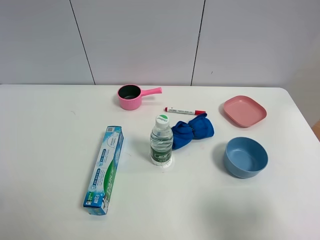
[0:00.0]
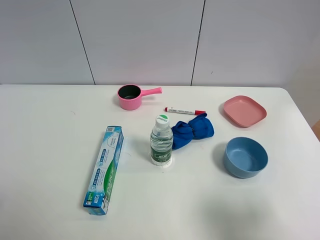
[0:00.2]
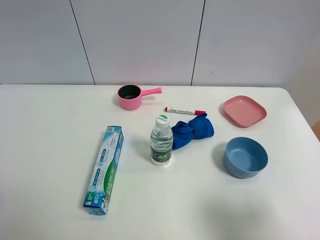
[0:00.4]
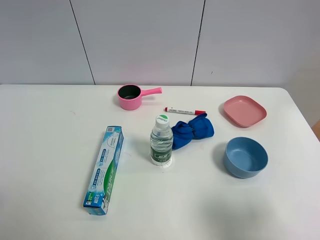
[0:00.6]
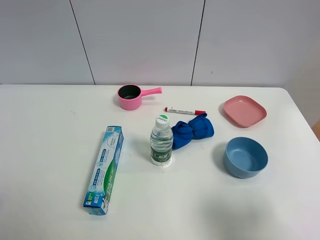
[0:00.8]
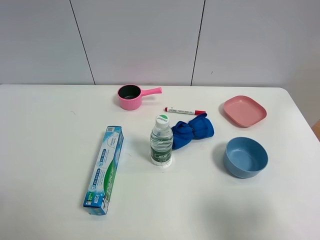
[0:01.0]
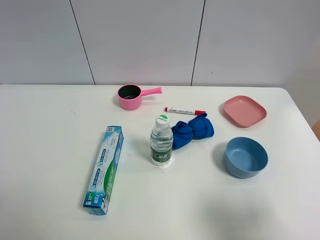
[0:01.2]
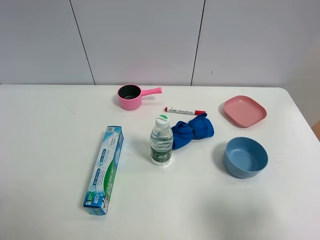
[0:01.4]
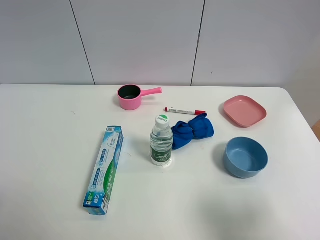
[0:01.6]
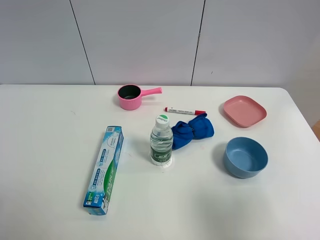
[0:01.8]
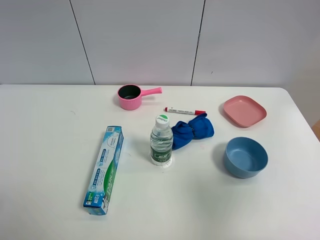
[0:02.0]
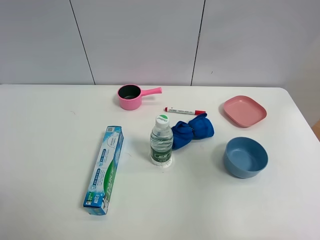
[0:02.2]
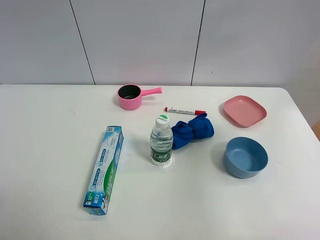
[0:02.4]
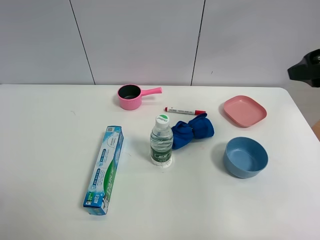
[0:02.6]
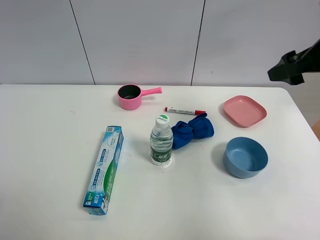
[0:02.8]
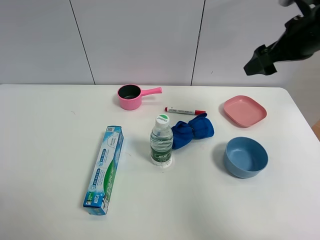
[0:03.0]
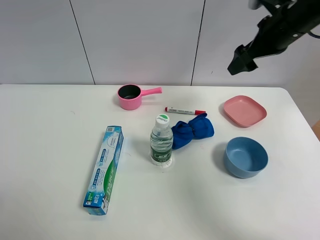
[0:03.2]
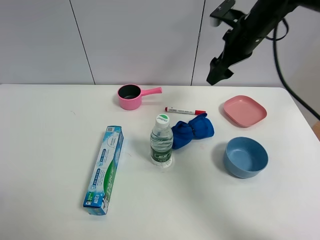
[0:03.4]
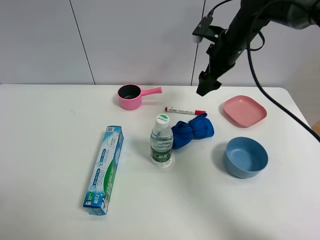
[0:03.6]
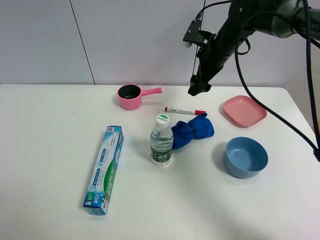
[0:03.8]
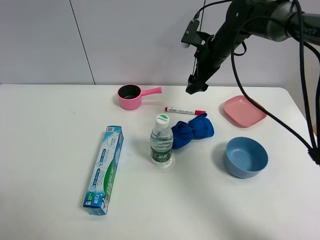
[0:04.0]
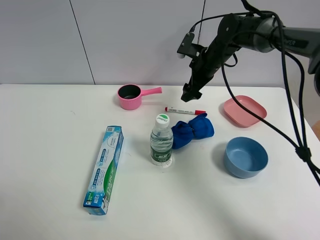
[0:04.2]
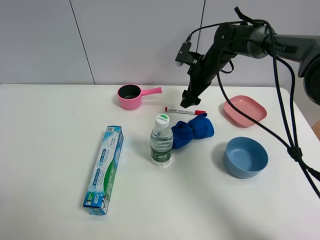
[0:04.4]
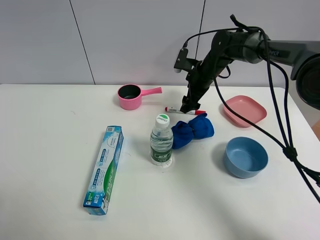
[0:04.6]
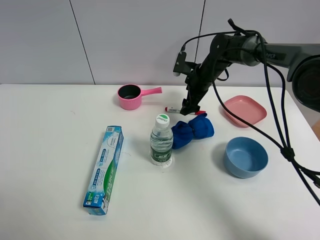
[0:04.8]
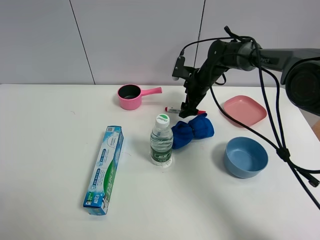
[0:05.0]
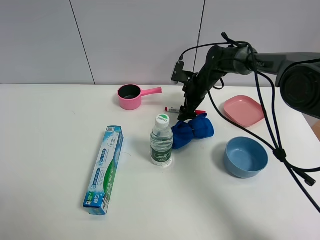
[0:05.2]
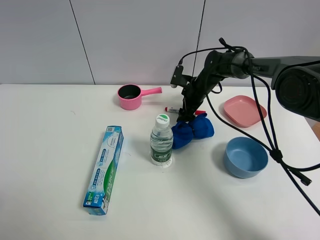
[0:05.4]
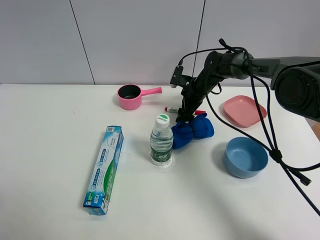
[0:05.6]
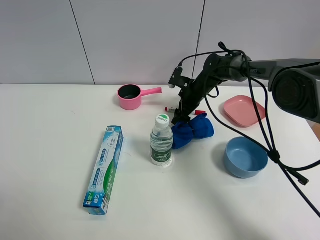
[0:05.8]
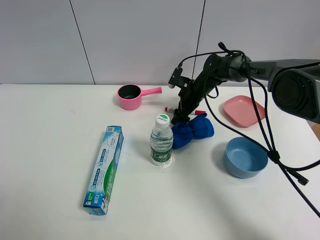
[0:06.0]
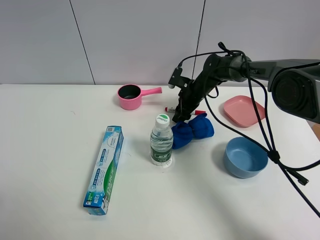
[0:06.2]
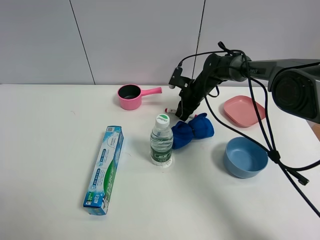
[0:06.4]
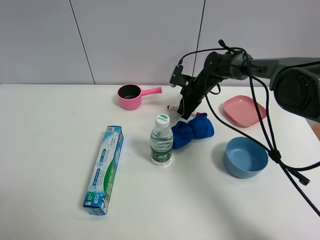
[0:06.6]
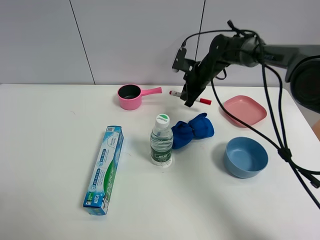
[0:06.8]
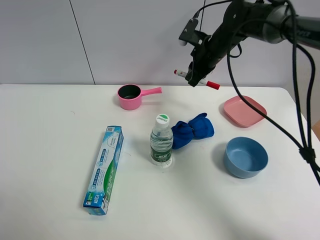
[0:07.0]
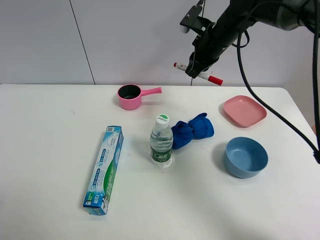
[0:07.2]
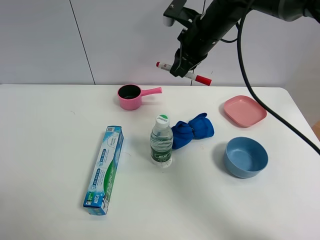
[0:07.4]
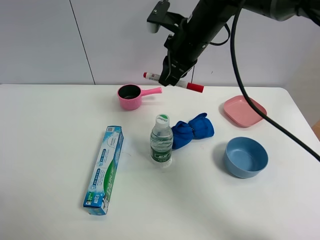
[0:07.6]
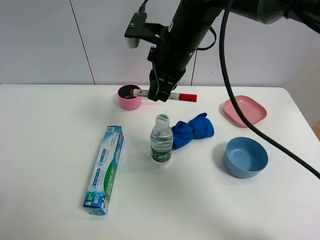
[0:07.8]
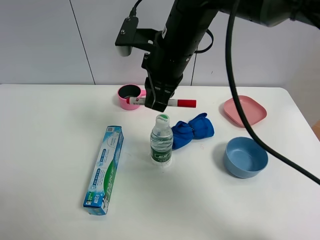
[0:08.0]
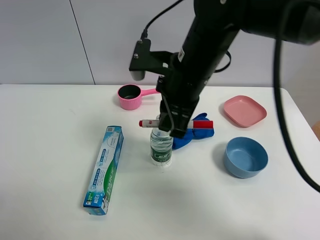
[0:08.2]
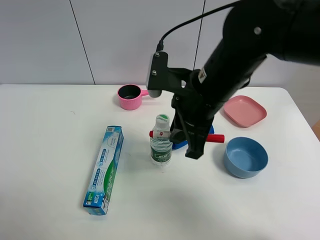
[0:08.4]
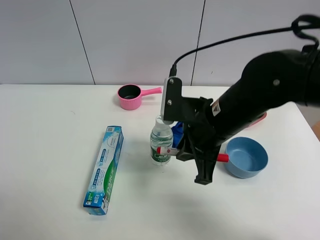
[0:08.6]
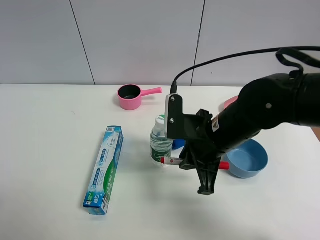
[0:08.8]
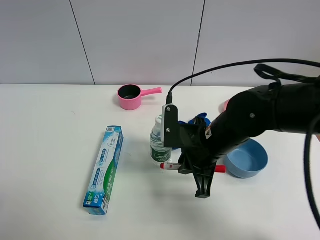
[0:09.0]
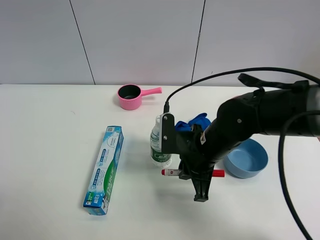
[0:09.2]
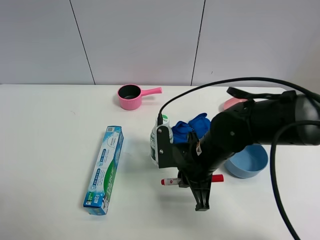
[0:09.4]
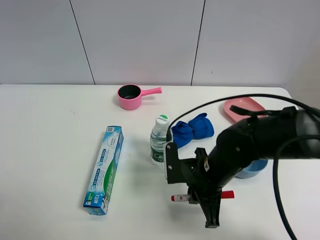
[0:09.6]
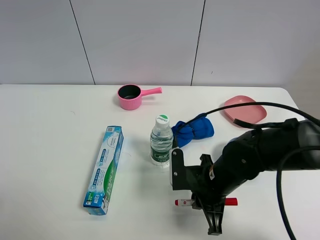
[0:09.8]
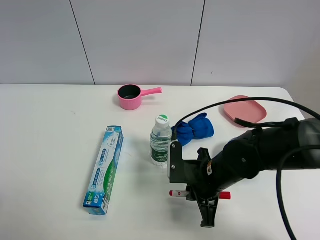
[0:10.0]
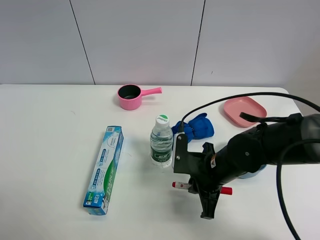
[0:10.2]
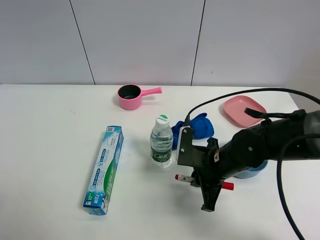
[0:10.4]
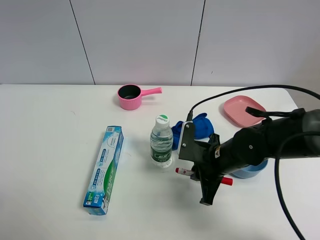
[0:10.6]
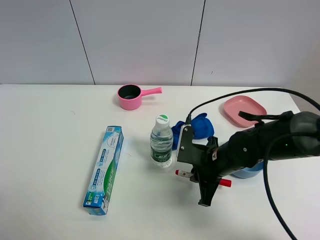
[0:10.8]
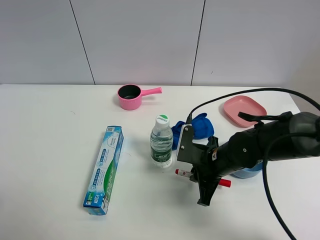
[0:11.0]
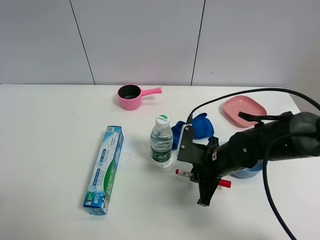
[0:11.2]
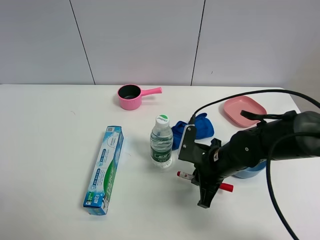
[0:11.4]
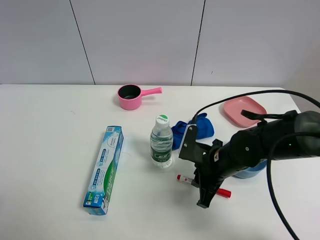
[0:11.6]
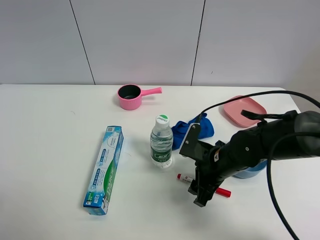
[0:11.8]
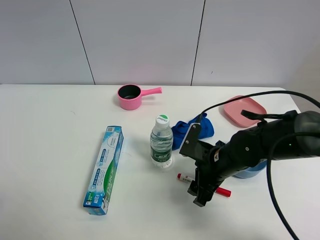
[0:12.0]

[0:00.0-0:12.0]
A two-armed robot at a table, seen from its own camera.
Task of the whole recording: the gripper move the object.
Step, 0:00.0 to 0:06.4: Grasp the red marker pen with the right gripper.
Step, 0:06.6 to 0:11.6: Place the red marker pen on the table with the right gripper.
0:01.6 to 0:03.0: The right gripper is displaced forward by about 35 cm.
0:03.0 to 0:04.4: The right gripper heads downward, forward and to the left, covering some 25 cm.
0:04.4 to 0:06.0: The right gripper heads downward, covering roughly 10 cm.
0:06.0 to 0:07.6: The right gripper goes roughly 25 cm upward and backward, and closes.
0:07.6 to 0:09.0: The right gripper travels backward and downward by approximately 20 cm.
0:09.0 to 0:10.4: The right gripper moves downward, approximately 5 cm.
0:10.4 to 0:12.0: The right gripper opens.

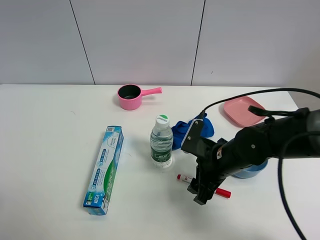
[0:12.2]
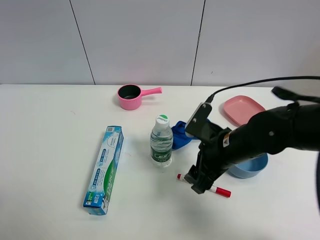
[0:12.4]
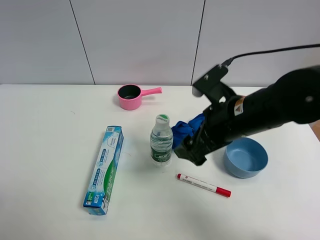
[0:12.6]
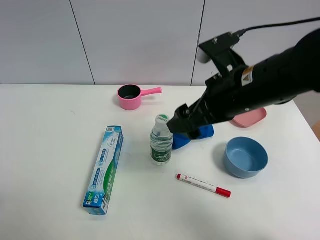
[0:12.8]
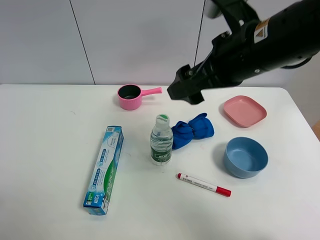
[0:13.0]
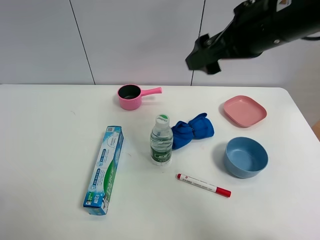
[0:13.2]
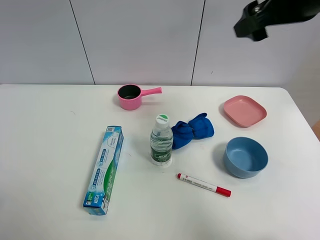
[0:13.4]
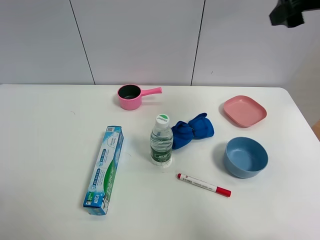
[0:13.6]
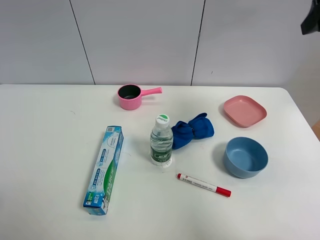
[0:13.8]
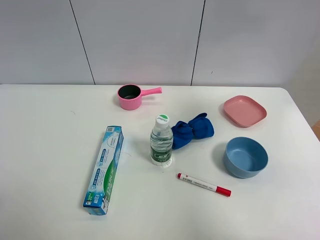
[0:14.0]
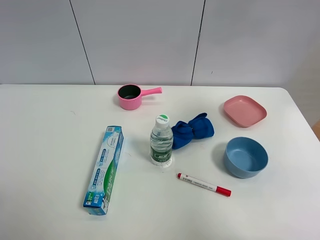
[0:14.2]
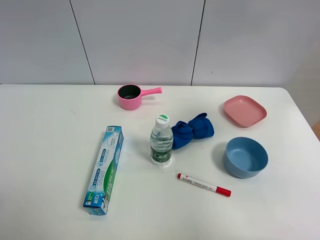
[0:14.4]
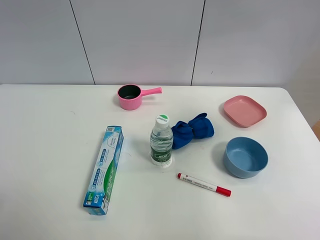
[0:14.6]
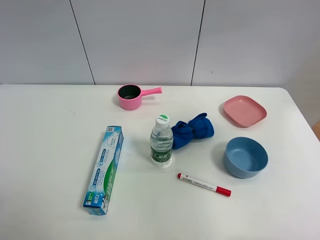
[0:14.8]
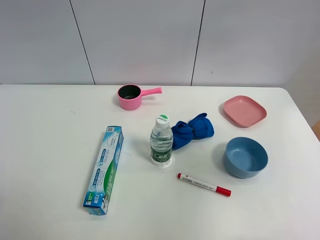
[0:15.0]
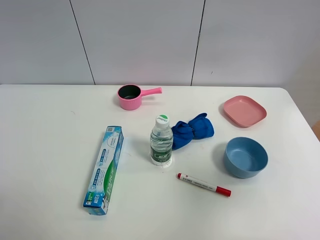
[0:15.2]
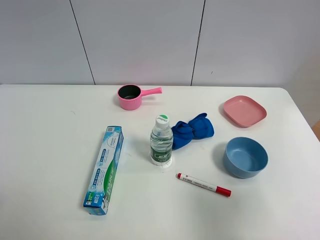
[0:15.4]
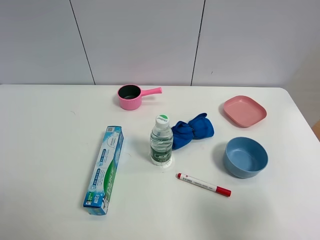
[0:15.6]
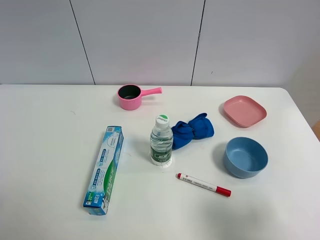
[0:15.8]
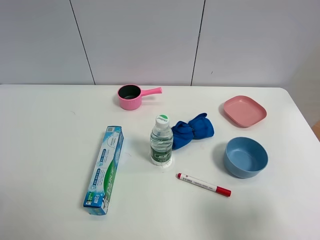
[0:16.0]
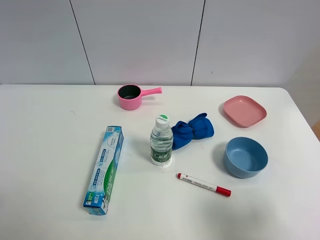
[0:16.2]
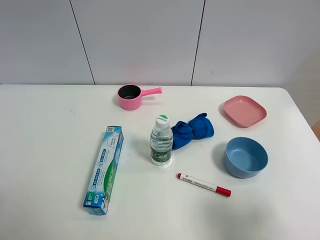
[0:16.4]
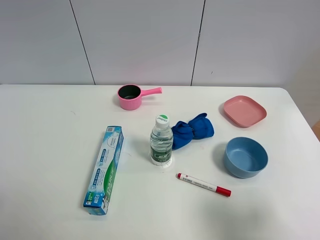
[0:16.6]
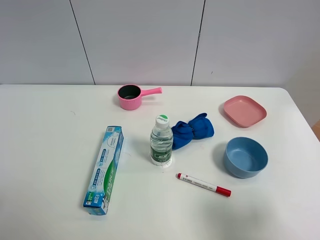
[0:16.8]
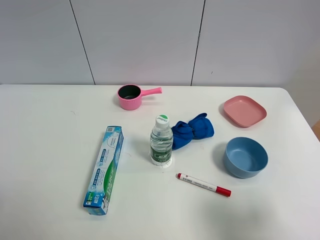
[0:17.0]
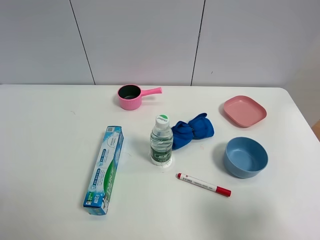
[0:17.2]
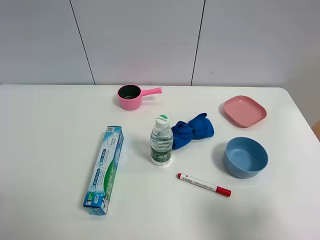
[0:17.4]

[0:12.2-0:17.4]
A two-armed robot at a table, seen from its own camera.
Task of the whole recording: the gripper move the object.
0:12.2 to 0:14.0: The right gripper moves upward and to the right, approximately 35 cm.
0:14.0 to 0:15.6: The right gripper heads backward and downward, covering roughly 30 cm.

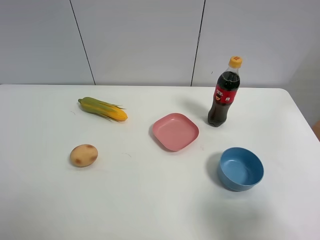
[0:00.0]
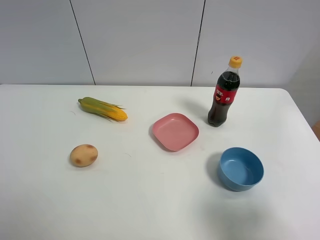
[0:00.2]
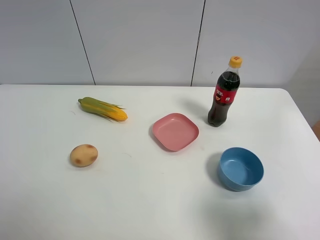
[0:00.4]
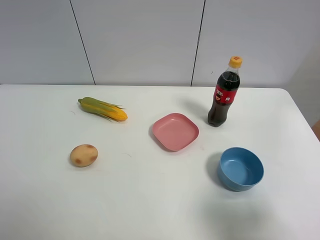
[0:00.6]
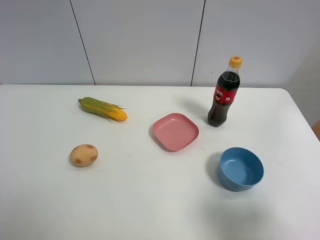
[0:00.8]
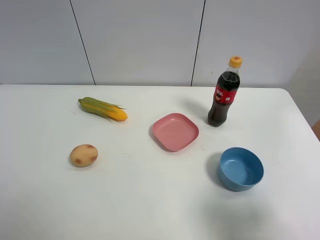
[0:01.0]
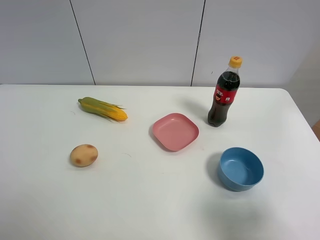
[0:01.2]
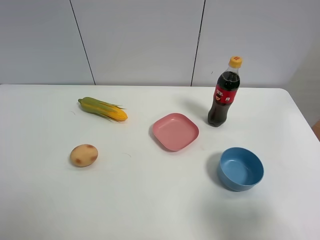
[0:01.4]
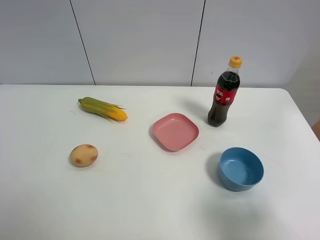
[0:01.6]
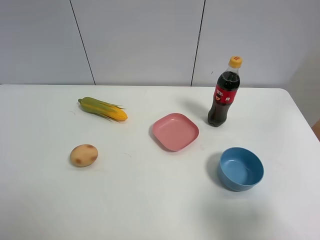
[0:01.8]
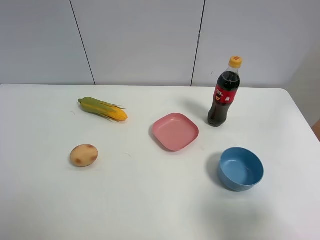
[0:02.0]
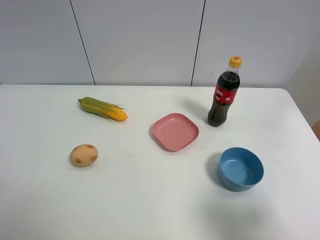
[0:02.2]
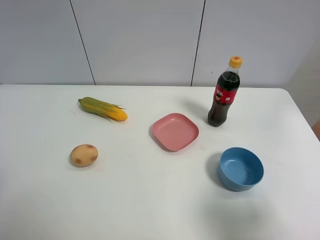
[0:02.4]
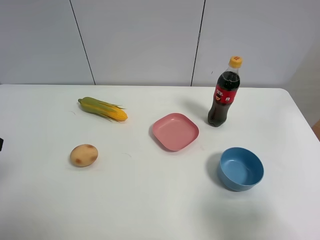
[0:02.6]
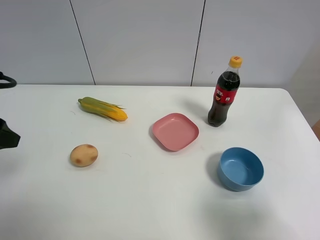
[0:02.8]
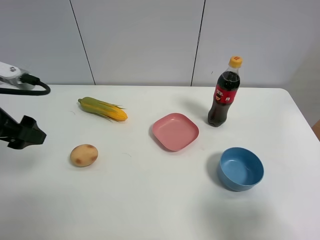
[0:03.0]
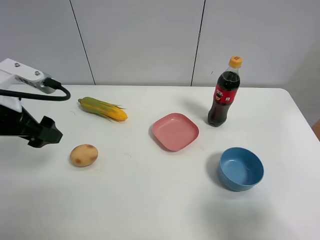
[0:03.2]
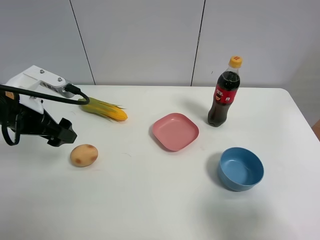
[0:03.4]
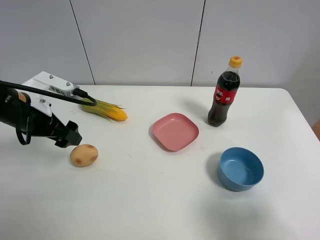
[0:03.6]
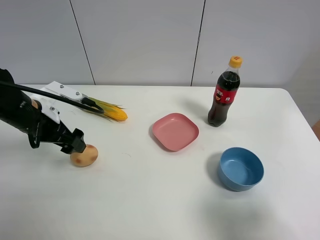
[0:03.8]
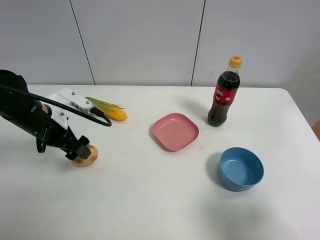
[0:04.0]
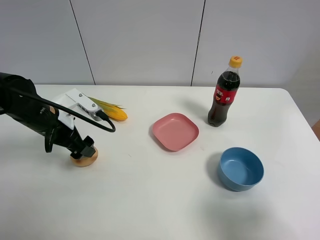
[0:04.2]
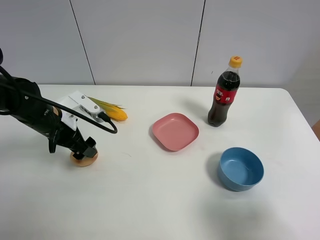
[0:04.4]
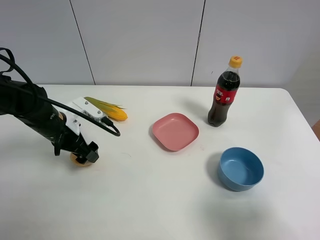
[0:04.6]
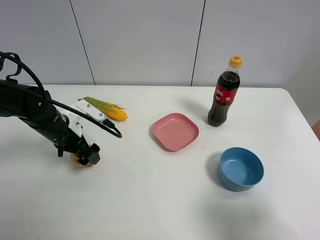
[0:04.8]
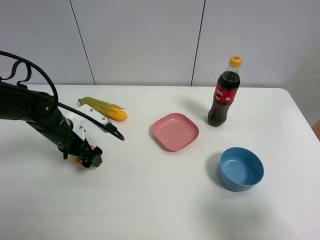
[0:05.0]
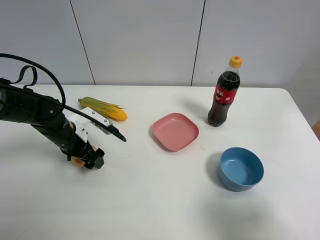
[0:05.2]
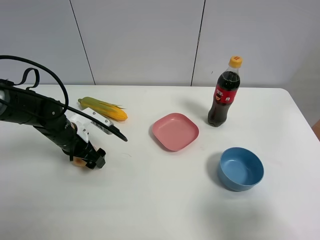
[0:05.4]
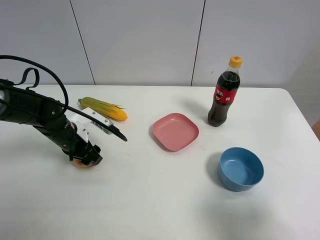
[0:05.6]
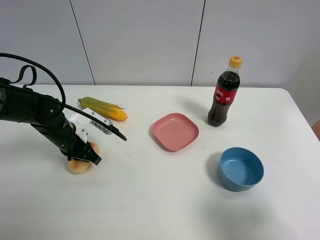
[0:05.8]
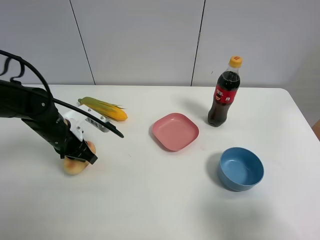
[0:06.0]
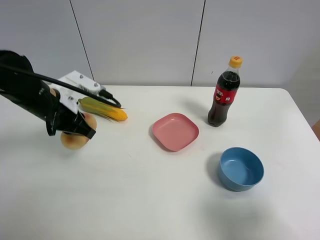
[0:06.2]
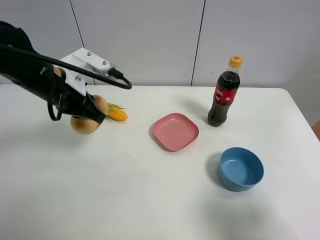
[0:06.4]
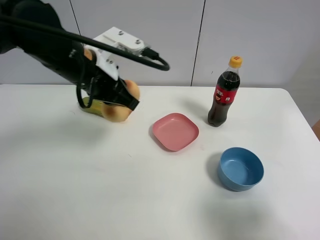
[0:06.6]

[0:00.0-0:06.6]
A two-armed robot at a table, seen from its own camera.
Task of the whole recording: the gripper move the object.
Step, 0:00.0 to 0:05.6: Grasp the egg yolk pastry with the left gripper.
0:00.0 to 0:01.6: Neither gripper changes place.
0:01.6 to 0:03.2: The left gripper is displaced forward by about 20 cm.
0:03.2 to 0:05.0: The left gripper goes some 15 cm downward and forward.
0:05.0 to 0:06.6: The left gripper travels upward and to the right by some 20 cm, and closes up.
